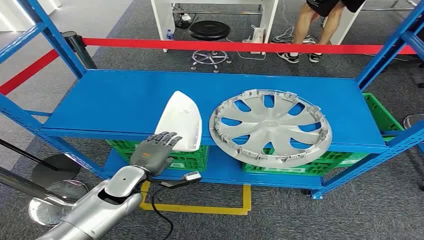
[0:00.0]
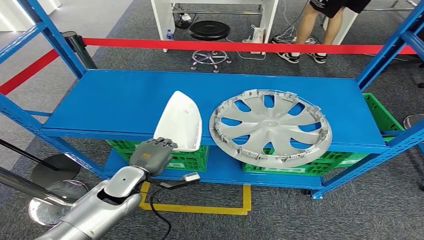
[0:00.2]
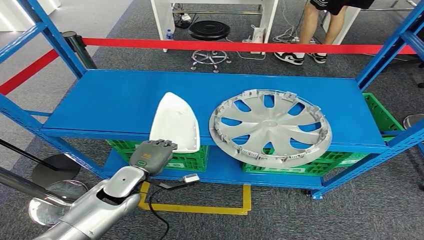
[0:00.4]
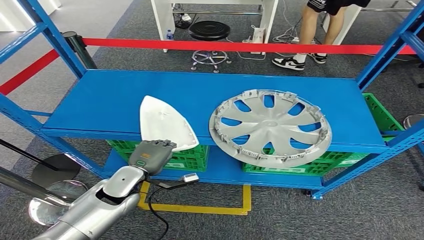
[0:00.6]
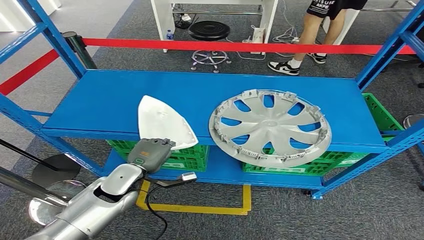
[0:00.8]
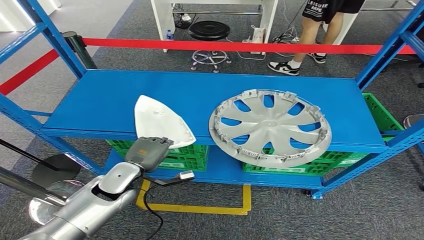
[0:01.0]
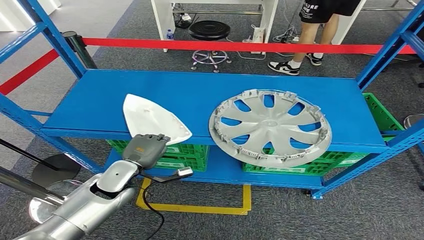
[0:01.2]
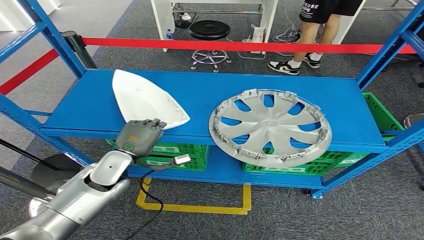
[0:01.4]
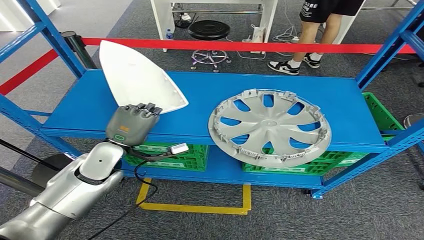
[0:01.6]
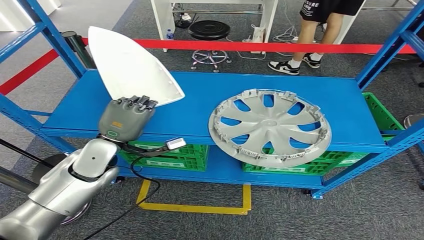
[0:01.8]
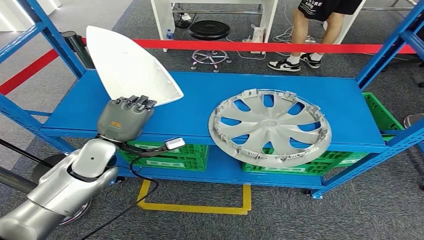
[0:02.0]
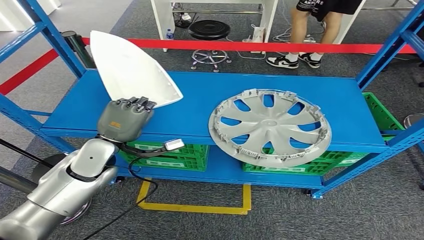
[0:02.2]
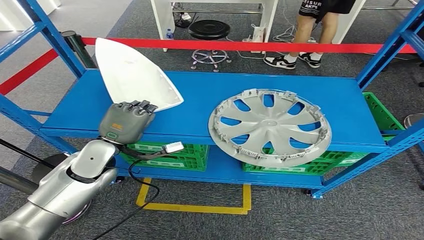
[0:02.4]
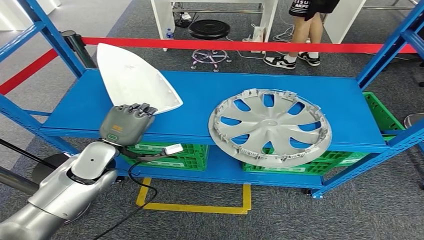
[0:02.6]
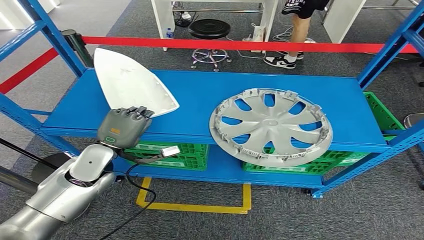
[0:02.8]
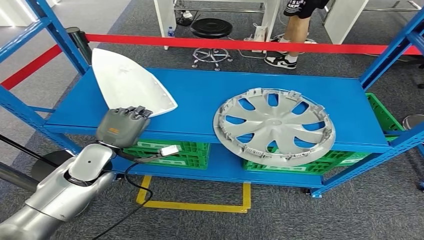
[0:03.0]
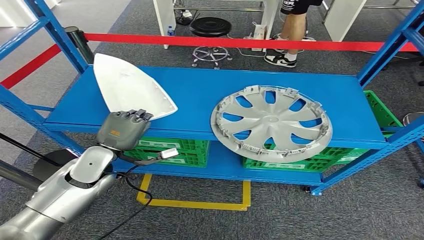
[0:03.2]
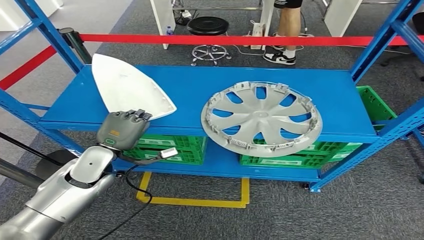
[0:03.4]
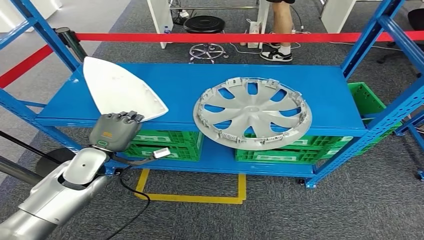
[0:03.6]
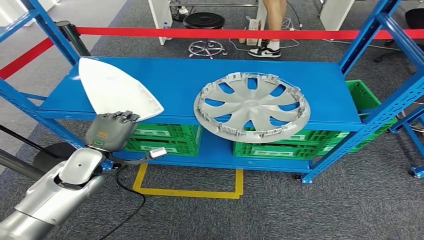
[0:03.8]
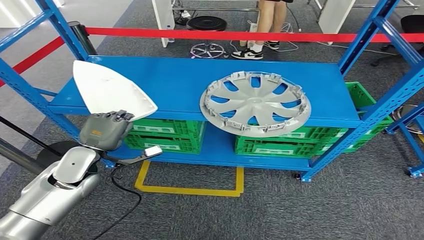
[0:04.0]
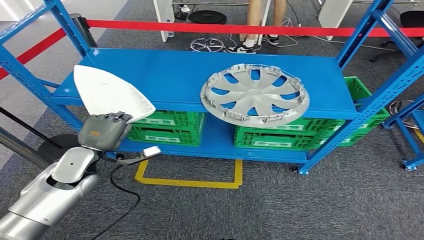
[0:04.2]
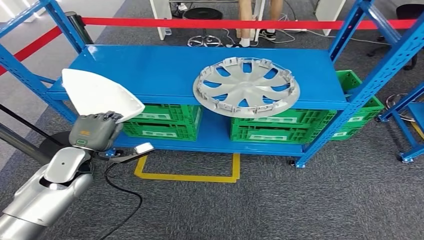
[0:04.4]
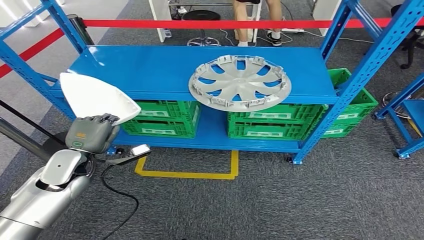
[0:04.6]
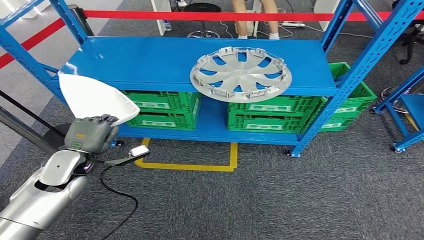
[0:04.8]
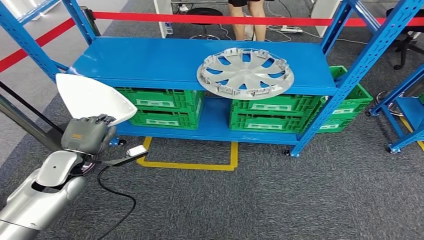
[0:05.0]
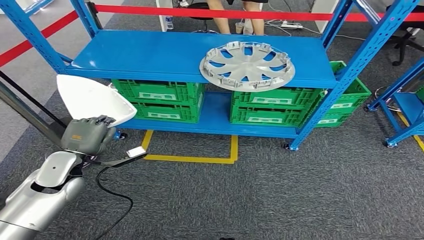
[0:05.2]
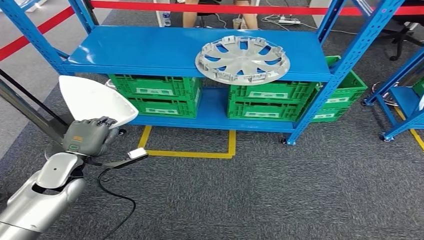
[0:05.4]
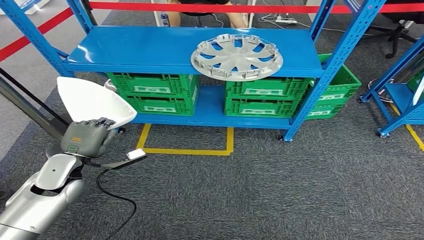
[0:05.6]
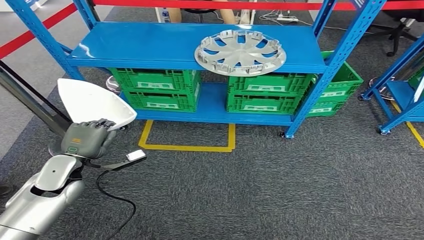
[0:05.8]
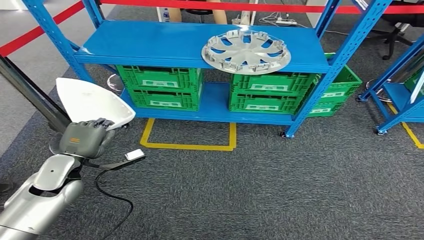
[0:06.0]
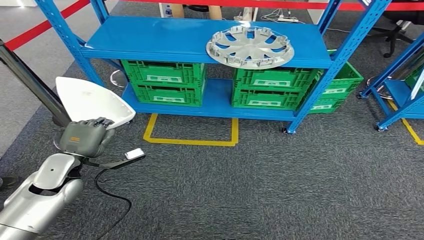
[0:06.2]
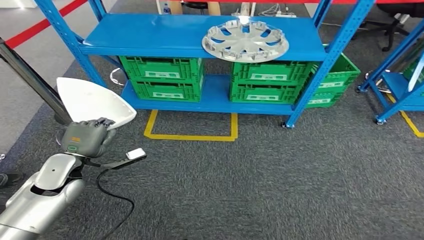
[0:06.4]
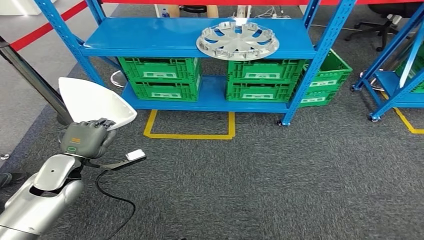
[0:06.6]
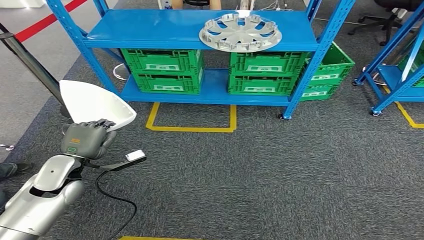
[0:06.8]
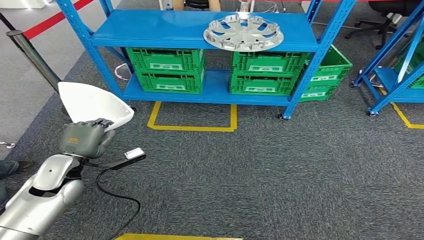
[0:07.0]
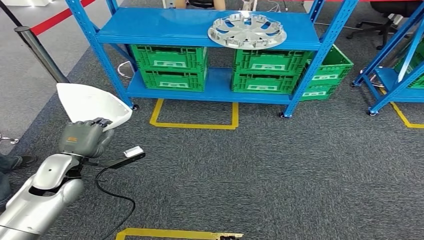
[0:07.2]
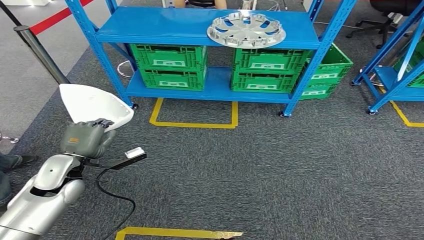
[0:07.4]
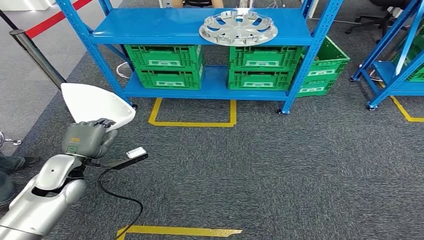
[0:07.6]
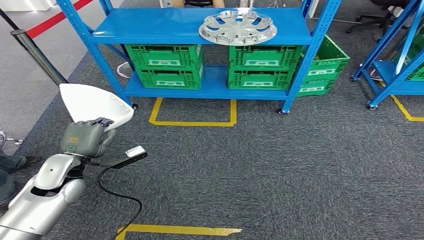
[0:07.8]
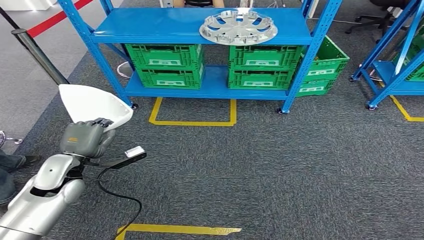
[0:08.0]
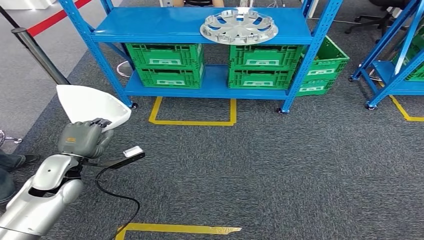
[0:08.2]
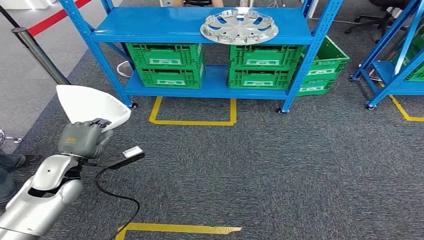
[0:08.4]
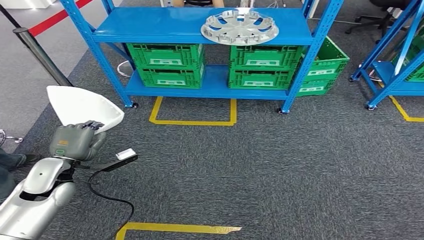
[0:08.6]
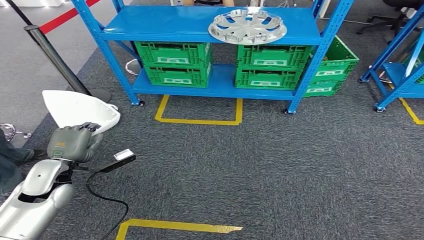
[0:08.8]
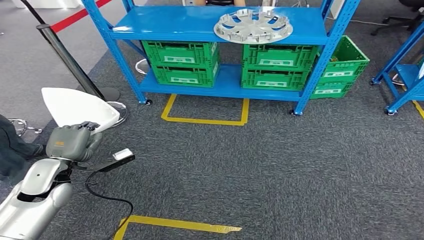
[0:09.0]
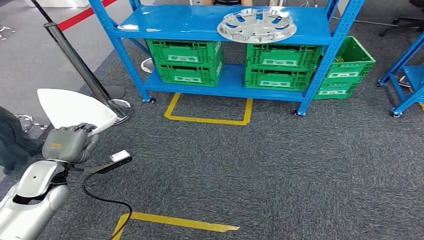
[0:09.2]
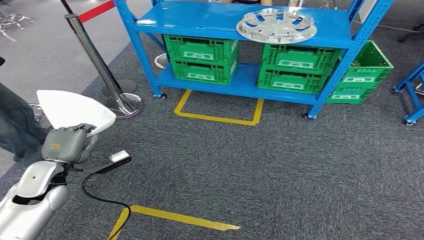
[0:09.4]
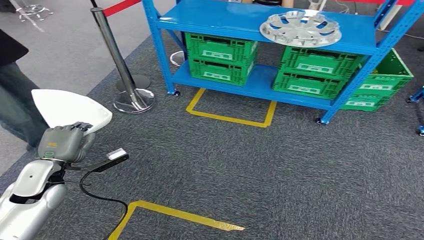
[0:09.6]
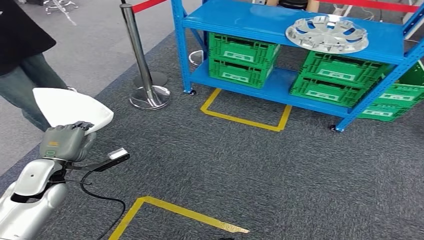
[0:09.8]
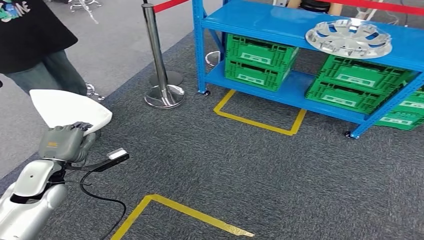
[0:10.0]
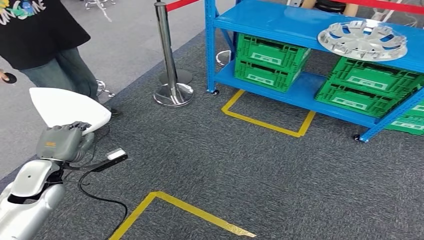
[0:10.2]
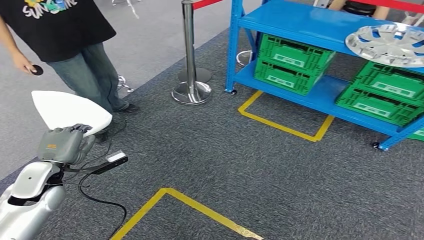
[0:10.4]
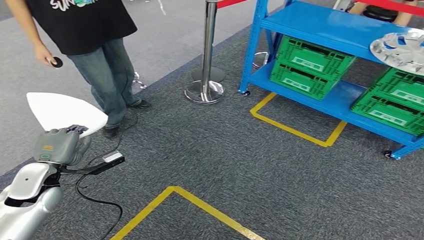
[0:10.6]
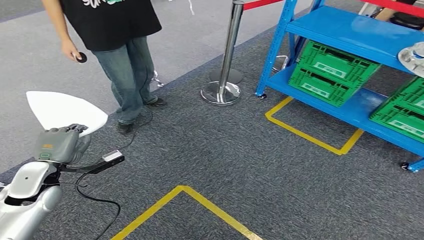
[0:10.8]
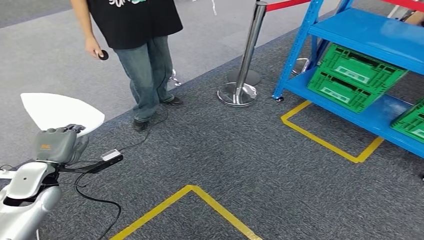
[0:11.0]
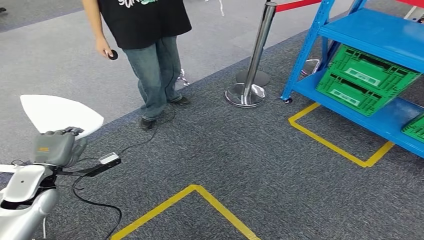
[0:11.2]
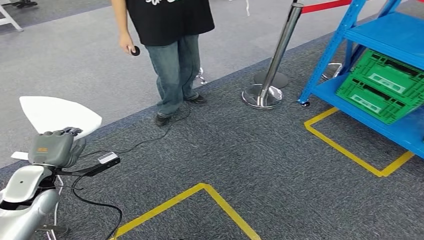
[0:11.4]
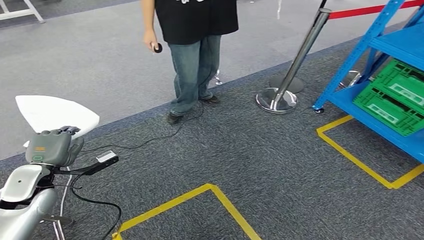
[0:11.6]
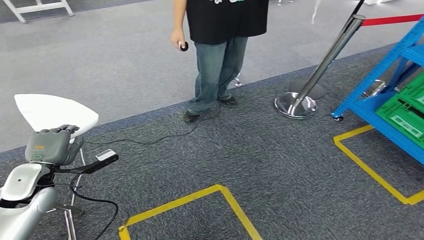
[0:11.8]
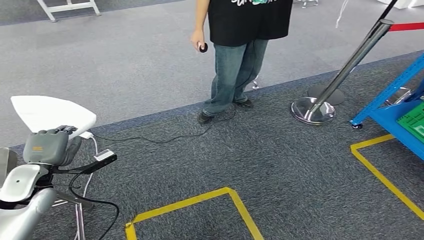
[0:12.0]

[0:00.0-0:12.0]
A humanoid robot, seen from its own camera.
Step, 0:00.0 to 0:02.2: Pick up the small component from the shelf.

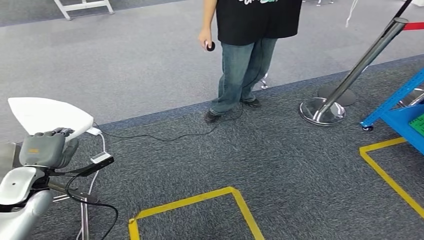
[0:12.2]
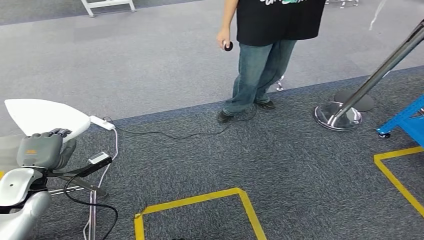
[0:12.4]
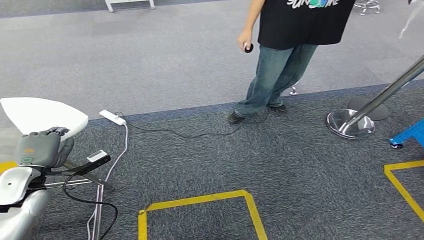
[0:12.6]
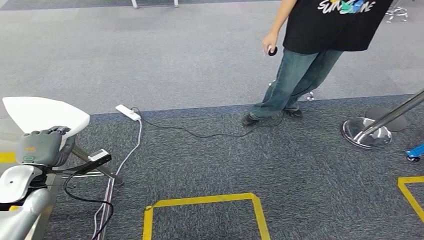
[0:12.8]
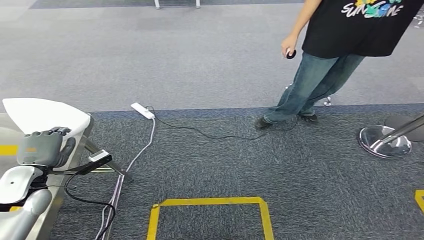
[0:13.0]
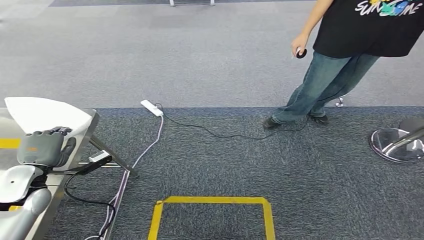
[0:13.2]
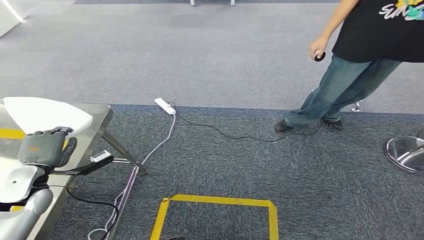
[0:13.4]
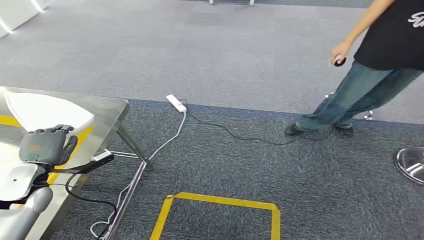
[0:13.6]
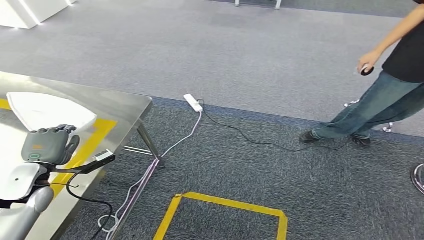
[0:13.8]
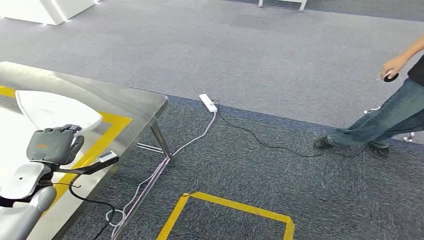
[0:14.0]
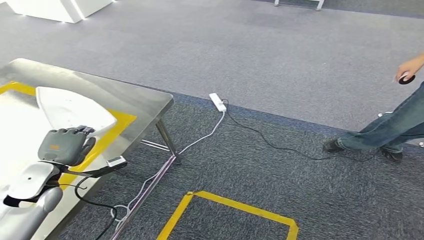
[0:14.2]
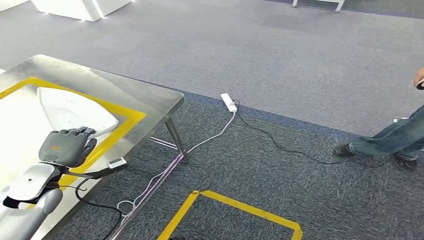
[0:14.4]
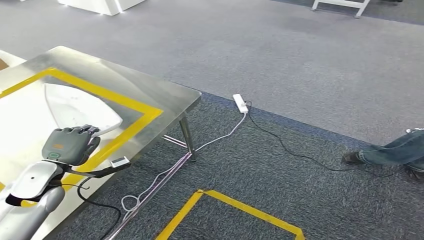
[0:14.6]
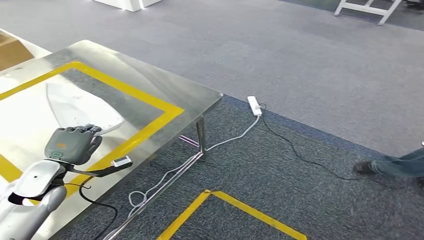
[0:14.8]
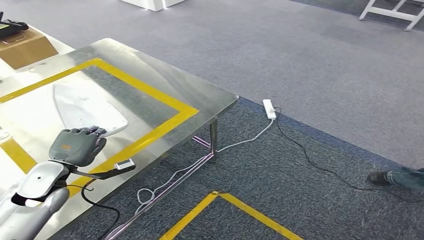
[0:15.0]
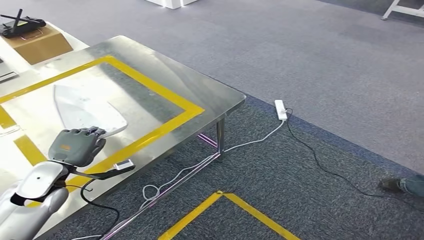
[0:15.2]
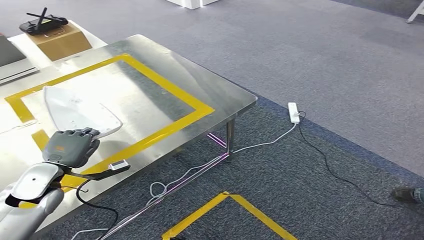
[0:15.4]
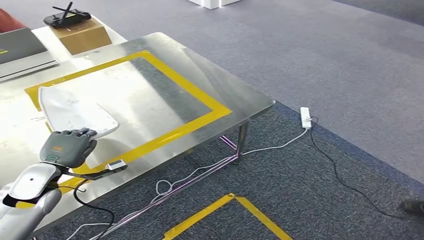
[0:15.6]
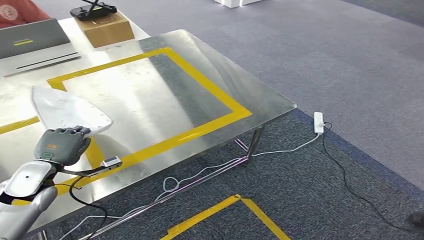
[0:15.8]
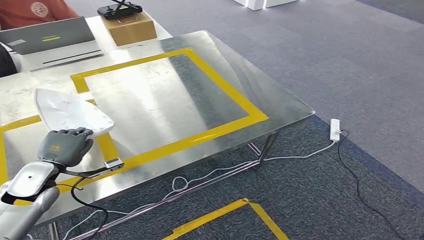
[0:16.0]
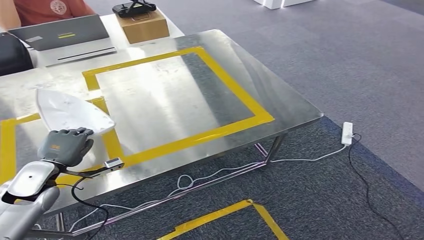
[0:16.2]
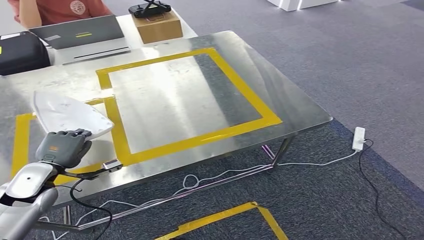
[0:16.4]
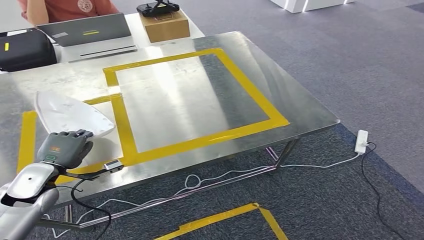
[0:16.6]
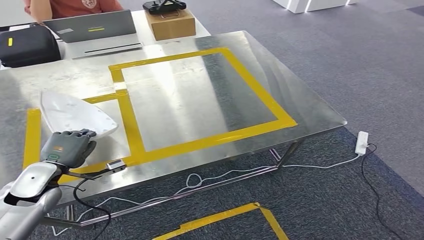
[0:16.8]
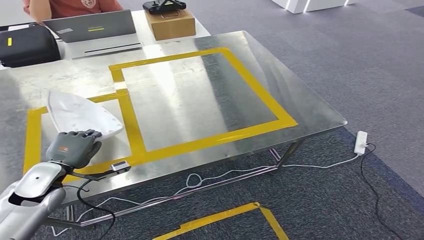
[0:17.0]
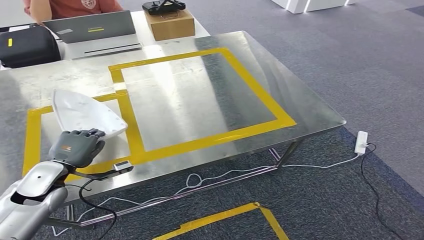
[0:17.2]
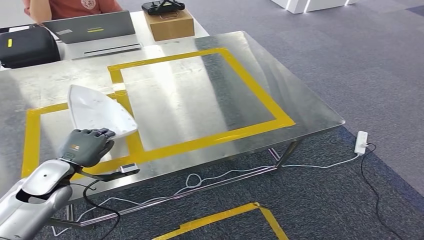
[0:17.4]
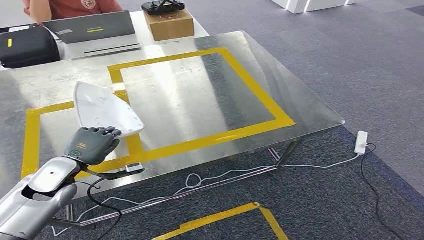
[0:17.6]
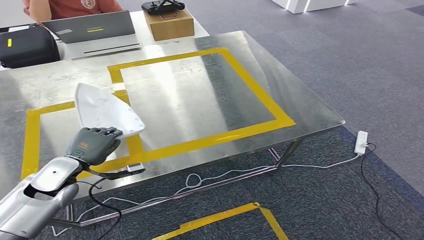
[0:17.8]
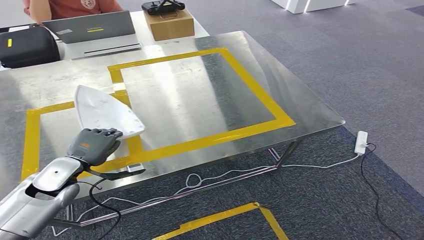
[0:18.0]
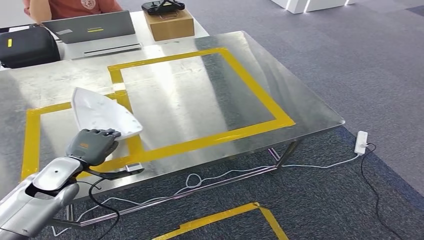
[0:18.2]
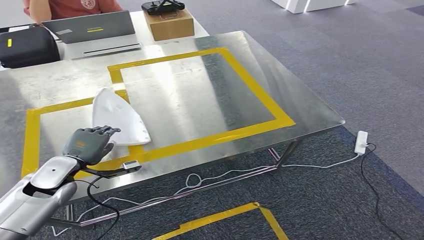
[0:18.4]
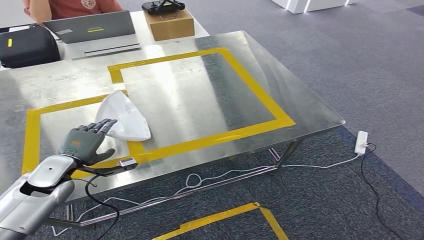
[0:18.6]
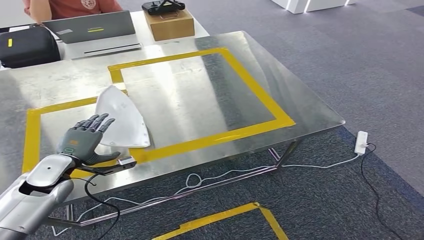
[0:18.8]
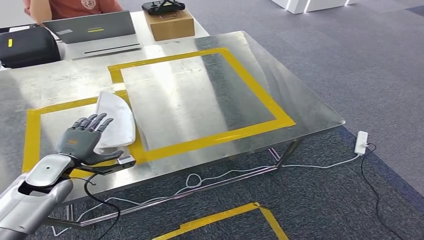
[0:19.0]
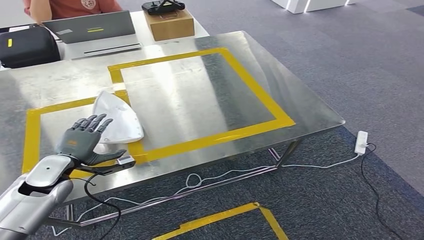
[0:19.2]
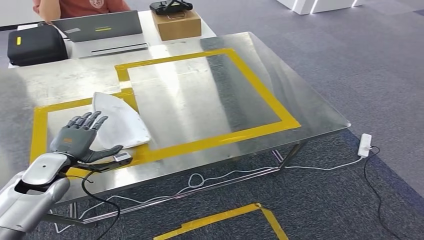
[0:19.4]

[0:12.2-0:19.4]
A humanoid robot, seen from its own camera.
Step, 0:12.2 to 0:16.0: Move the small component to the workbench.
0:16.6 to 0:19.4: The hands make only small movements.
